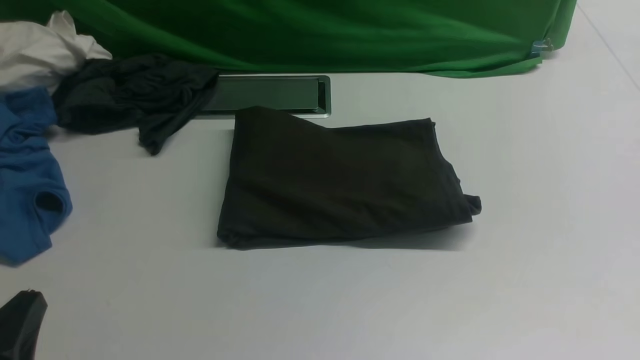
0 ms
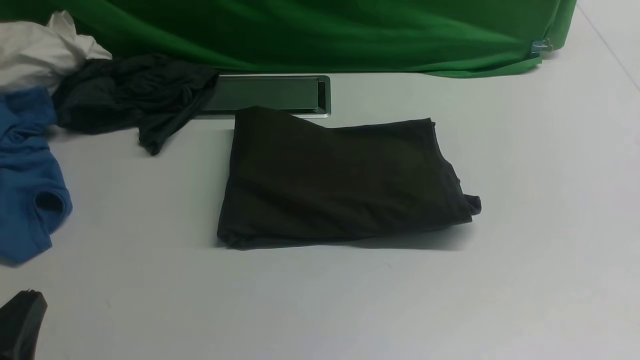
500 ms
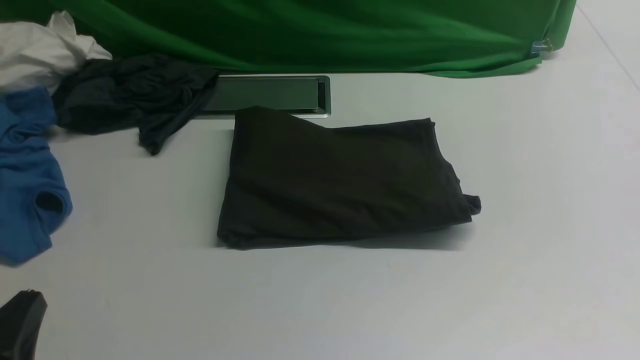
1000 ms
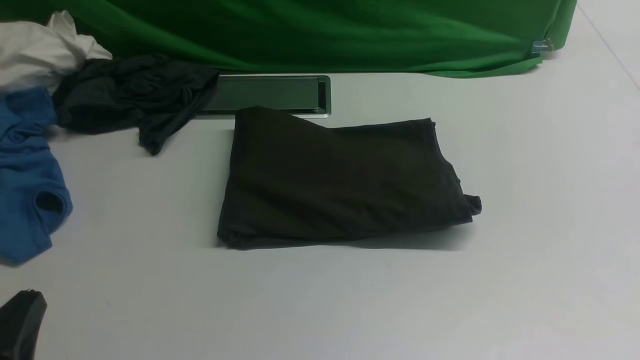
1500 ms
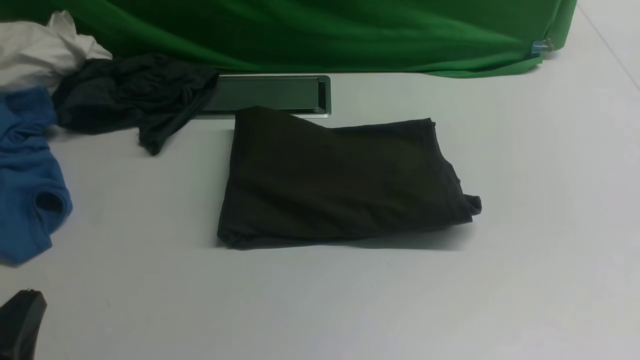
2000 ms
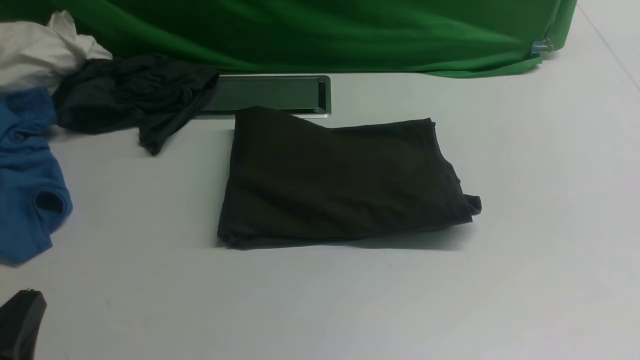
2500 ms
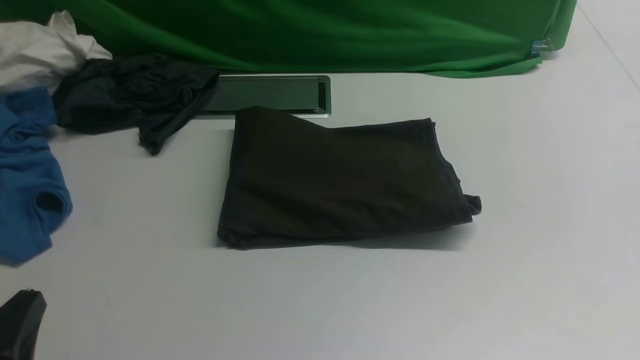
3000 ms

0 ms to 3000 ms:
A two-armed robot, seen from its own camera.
1500 ms to 3000 ms: Neither gripper changes place.

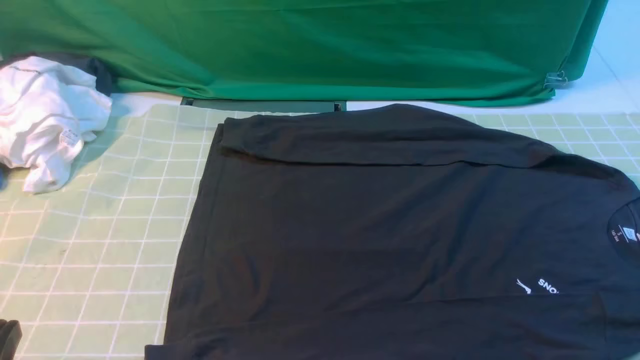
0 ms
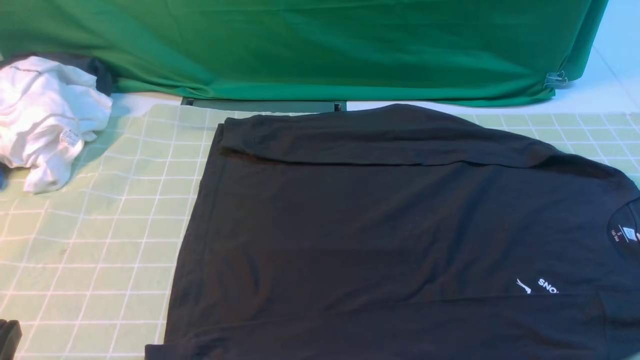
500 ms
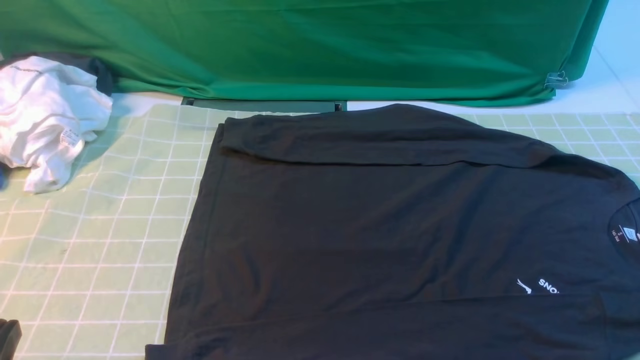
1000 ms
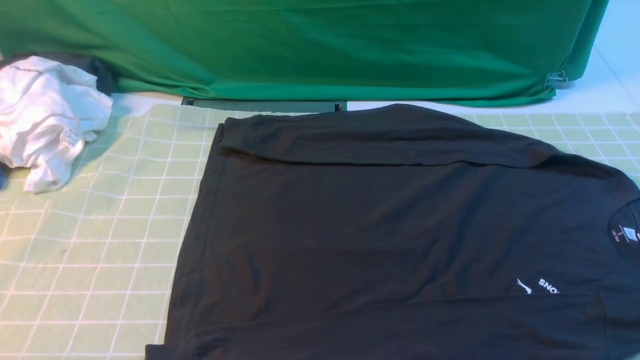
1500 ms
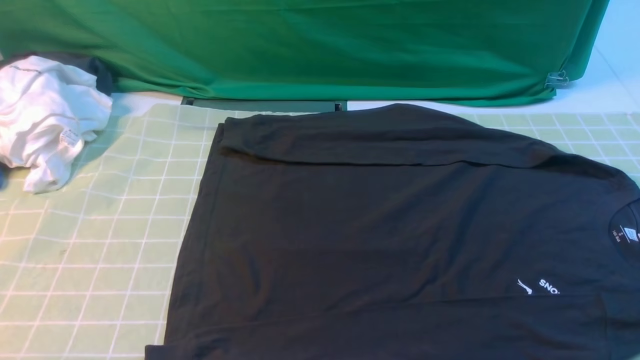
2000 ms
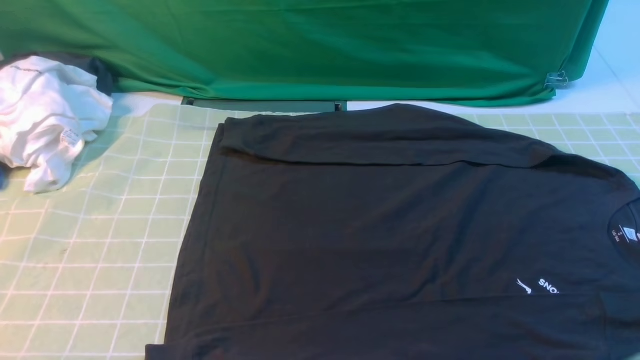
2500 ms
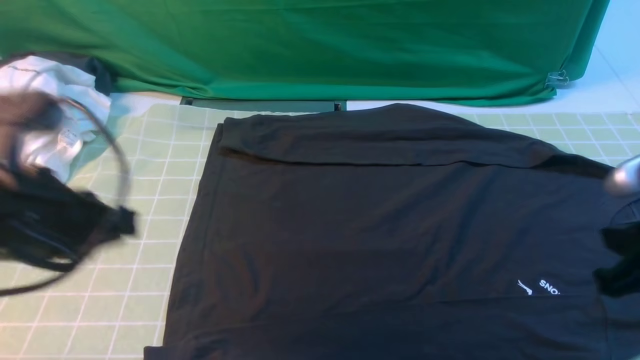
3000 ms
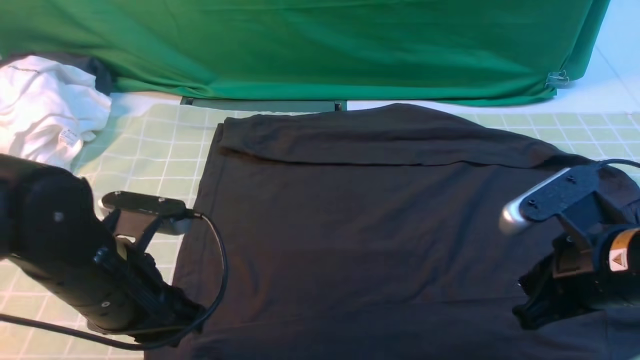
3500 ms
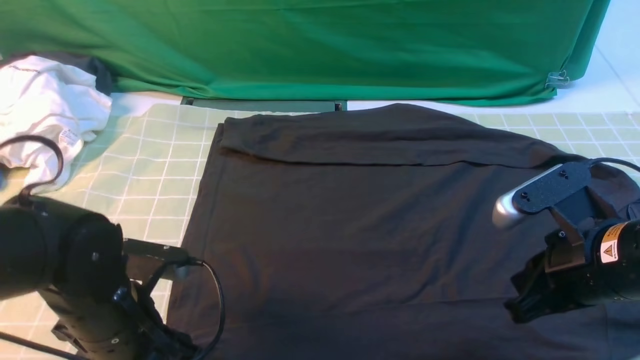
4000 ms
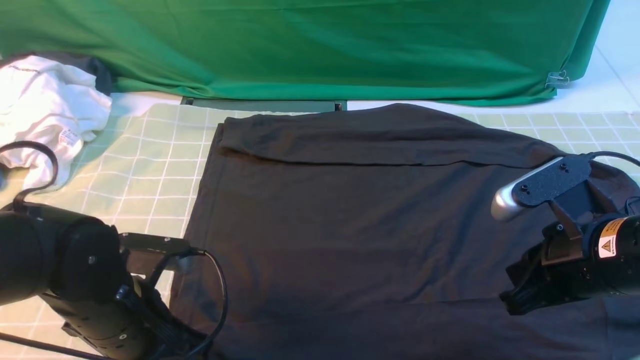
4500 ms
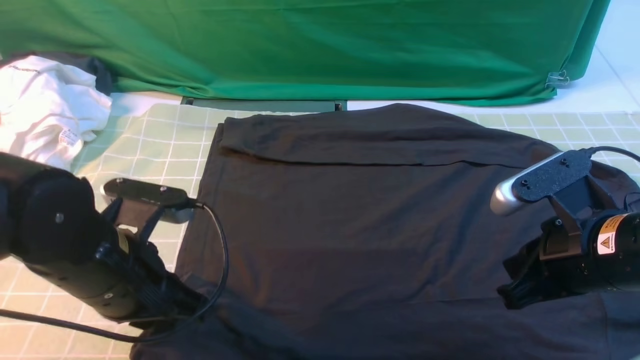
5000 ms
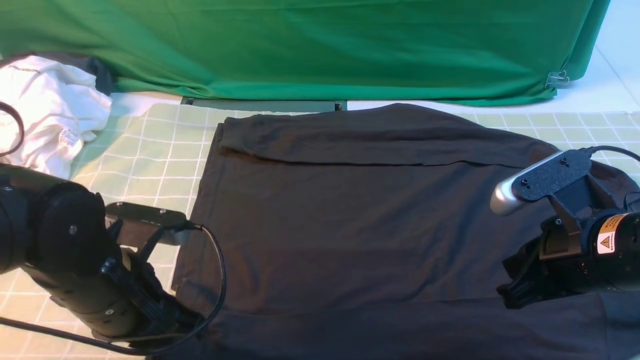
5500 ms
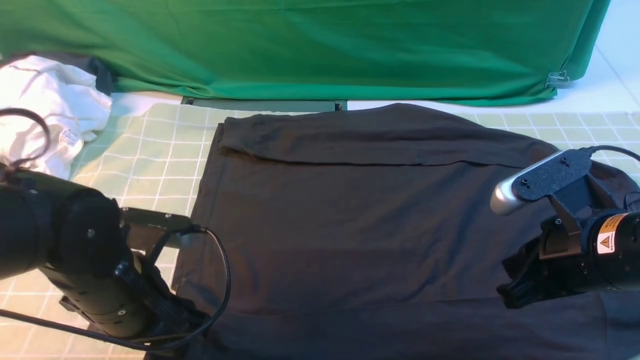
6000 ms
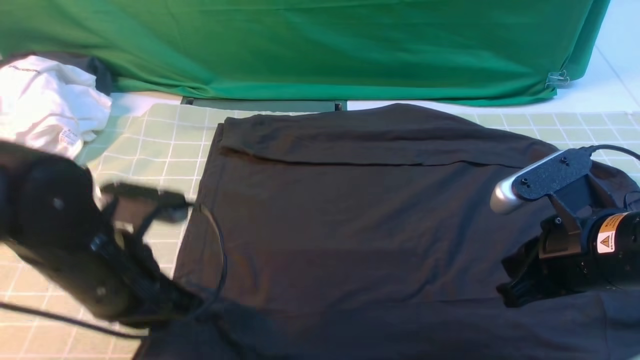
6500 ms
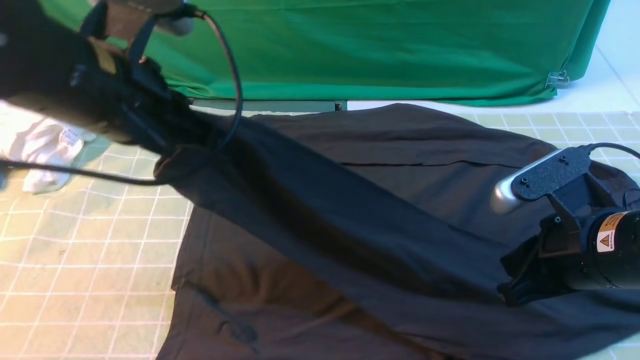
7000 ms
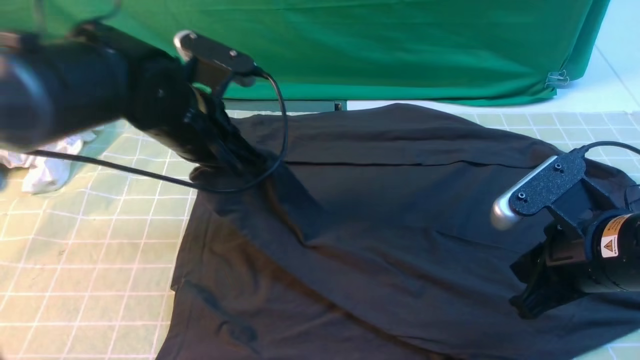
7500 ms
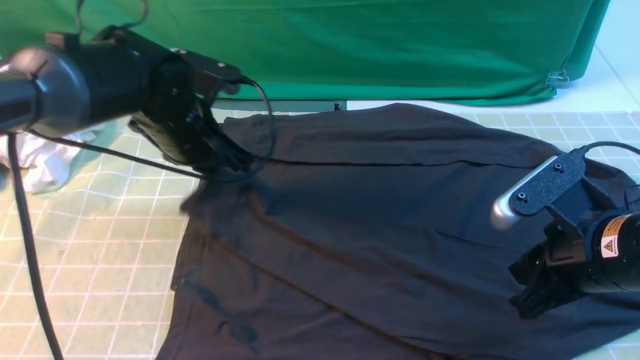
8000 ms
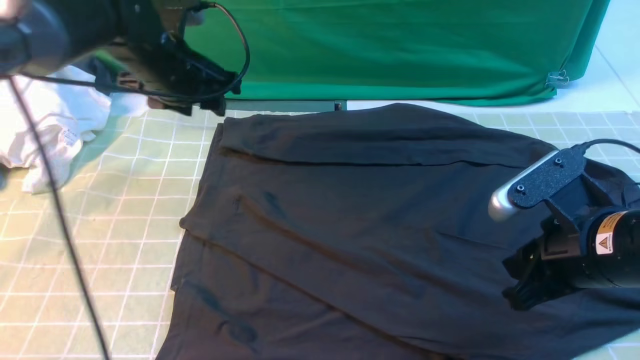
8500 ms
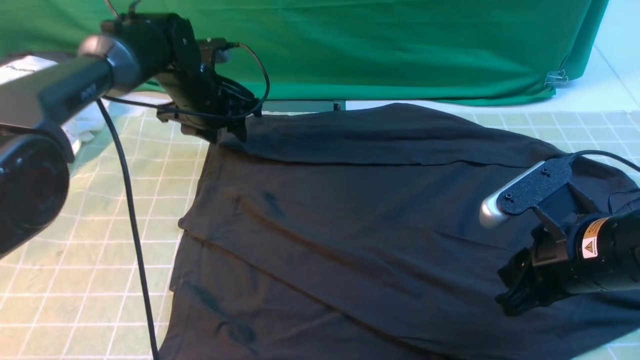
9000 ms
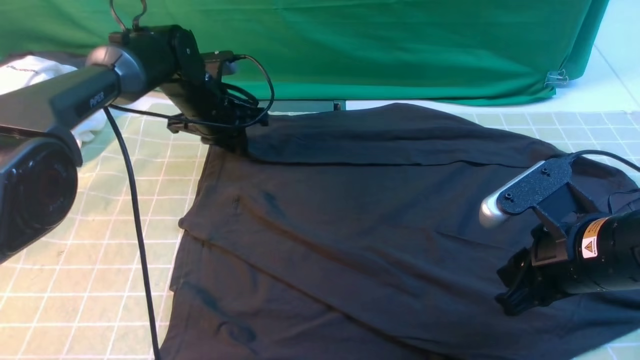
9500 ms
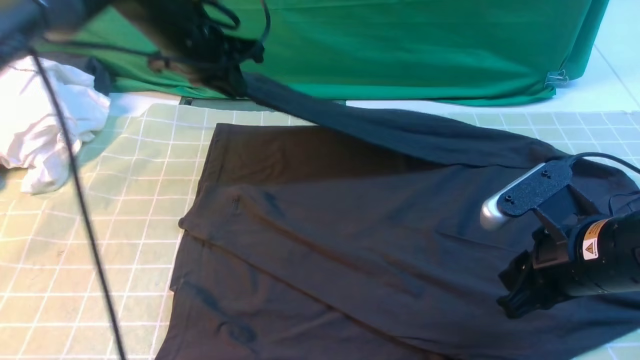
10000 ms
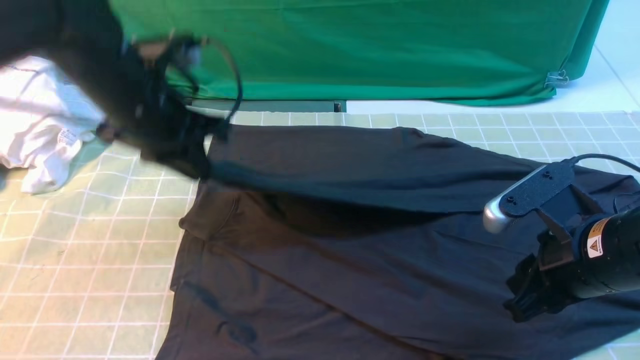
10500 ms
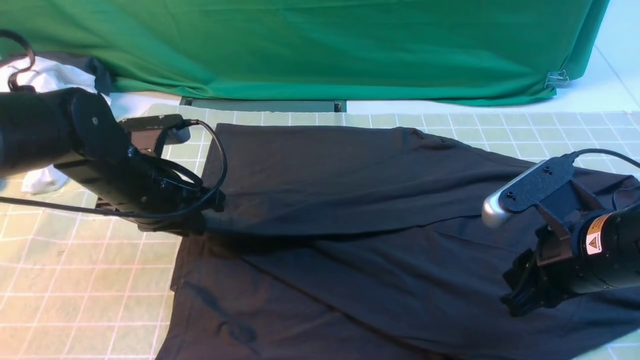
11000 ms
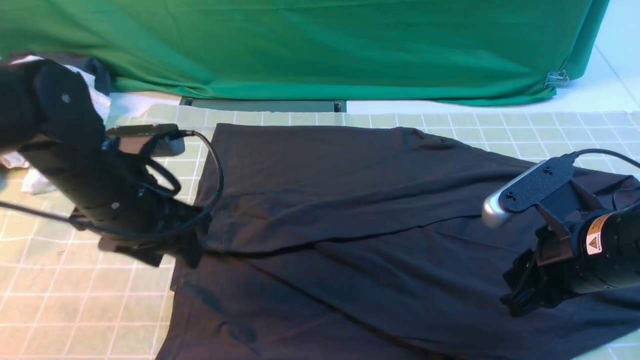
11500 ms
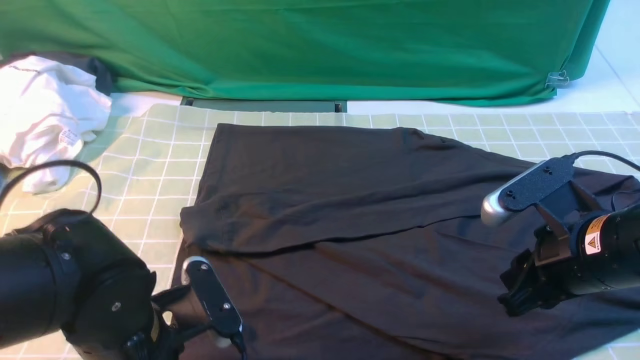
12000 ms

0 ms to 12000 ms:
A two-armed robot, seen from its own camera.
Step, 0 ms to 6000 ms: use the left arm to clamp the cuff closest to it.
Step, 6500 ms to 8000 ms: use the left arm to drag and place the cuff at the centered position on the left edge of the fabric.
Step, 8500 ms to 9500 ms: use the left arm to clamp the cuff farthest from it.
Step, 10000 ms to 11000 ms: use the left arm to drag and drop the cuff onto the cuff closest to the left arm.
2000 ms to 4000 ms: The left gripper goes roughly 20 cm forward, to the right and downward, and opens its fingers. Meanwhile the right gripper is displaced forward and to the left by approximately 20 cm, and closes.
4000 ms to 6000 ms: The left gripper closes, then reopens.
6000 ms to 8000 ms: The left gripper is displaced forward by about 15 cm, and closes up.
8000 ms to 10000 ms: The left gripper moves forward and upward, roughly 10 cm, and closes up.
10000 ms to 12000 ms: The left gripper goes roughly 30 cm backward, and opens its fingers.

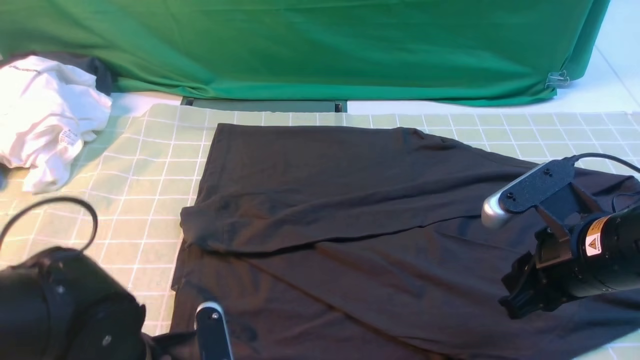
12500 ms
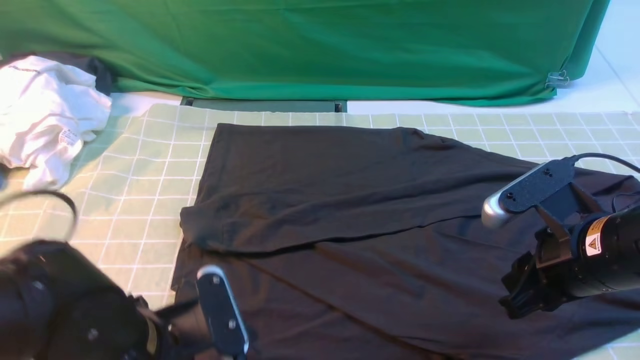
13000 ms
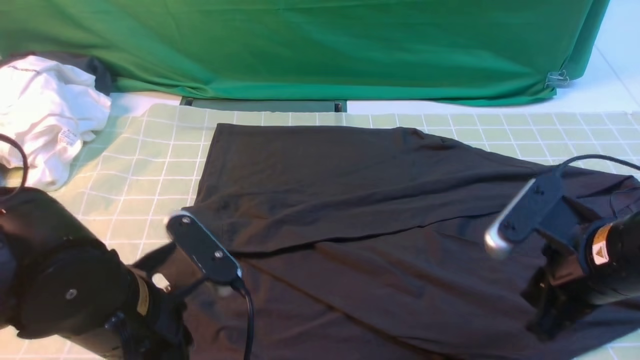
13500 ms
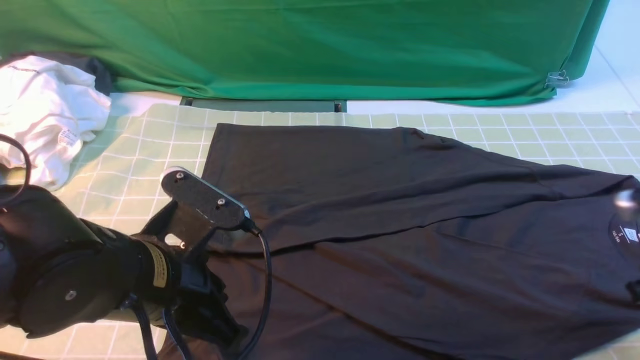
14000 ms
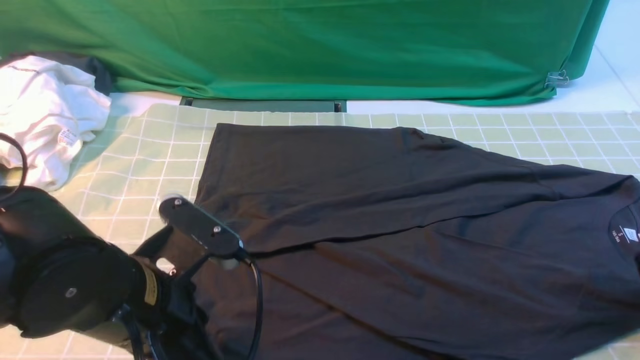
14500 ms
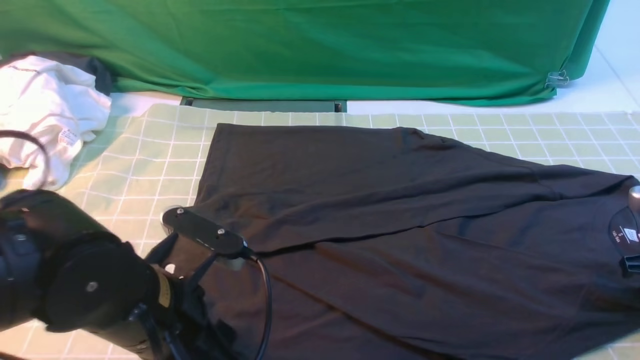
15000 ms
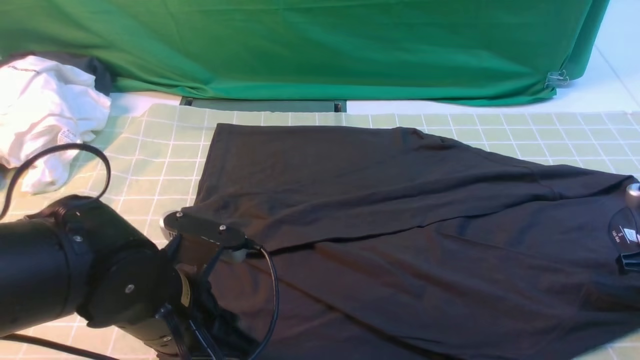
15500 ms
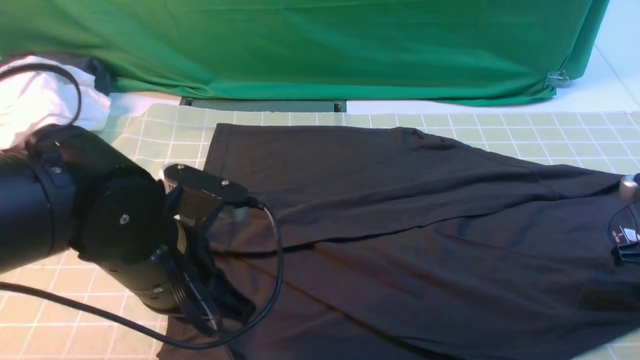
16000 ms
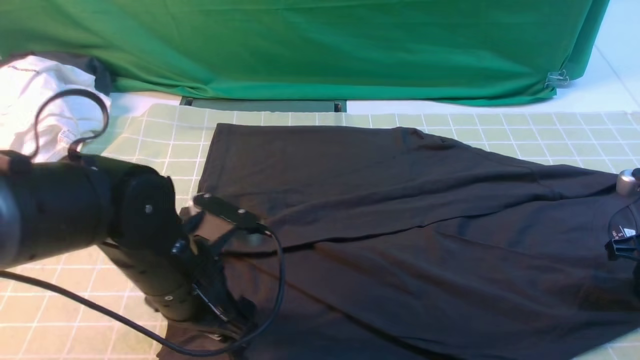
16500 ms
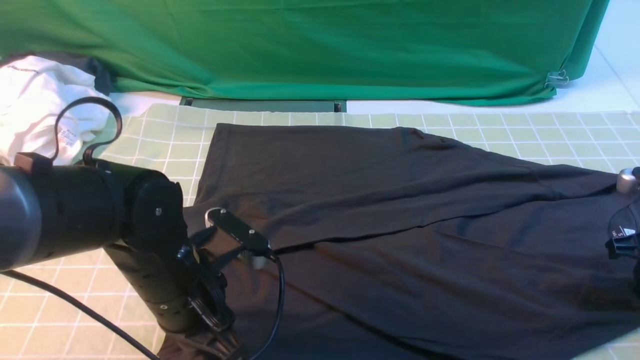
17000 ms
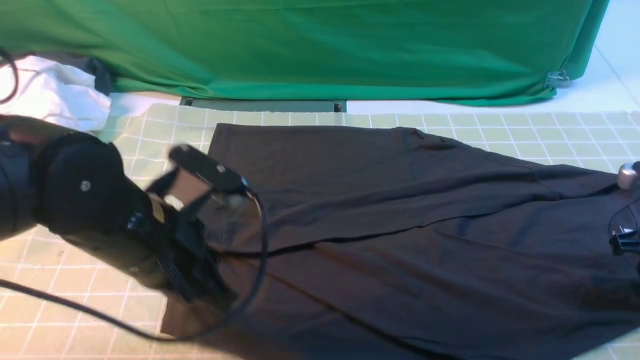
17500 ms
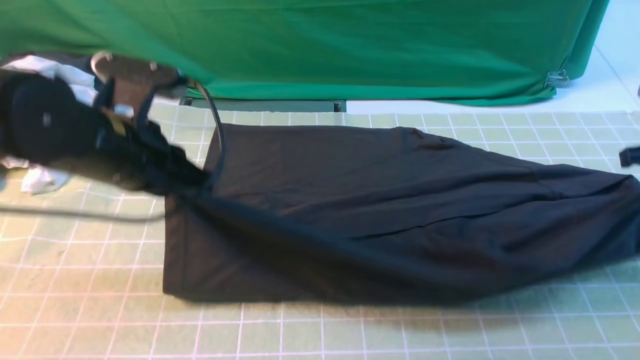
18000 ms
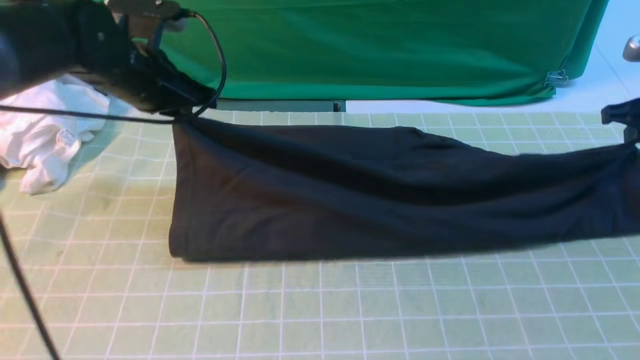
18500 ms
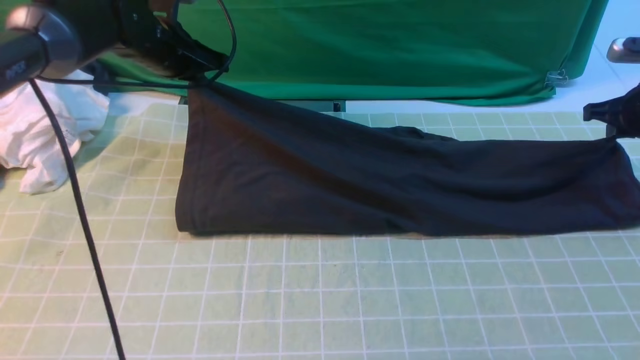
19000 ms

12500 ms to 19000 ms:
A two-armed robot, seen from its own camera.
Step, 12500 ms to 17000 ms: use both arms simultaneously to clamp the lower edge of the clothing fabric.
12500 ms to 14500 ms: The left gripper travels upward by roughly 5 cm, and closes its fingers. The right gripper moves to the right, approximately 15 cm, and opens.
14500 ms to 17000 ms: The right gripper closes up. The left gripper goes roughly 5 cm forward, and opens, then closes once more.
17000 ms to 19000 ms: The left gripper heads forward, covering approximately 25 cm; the right gripper goes approximately 15 cm forward.
